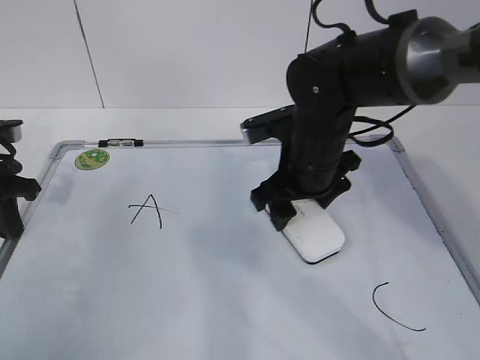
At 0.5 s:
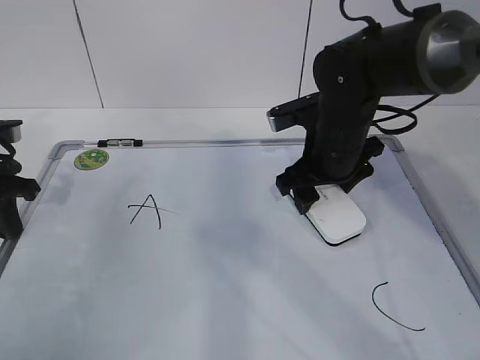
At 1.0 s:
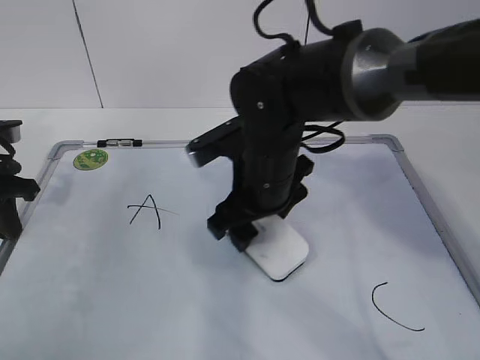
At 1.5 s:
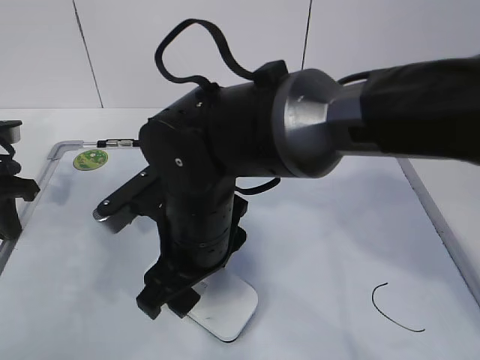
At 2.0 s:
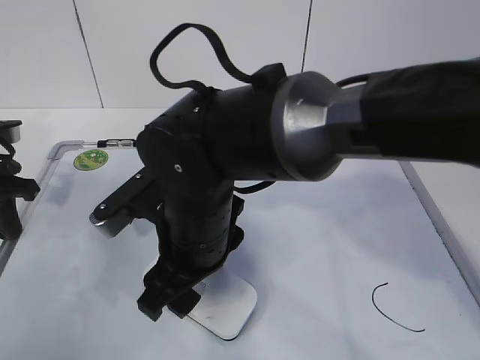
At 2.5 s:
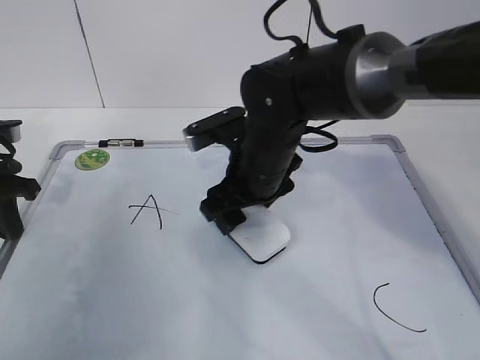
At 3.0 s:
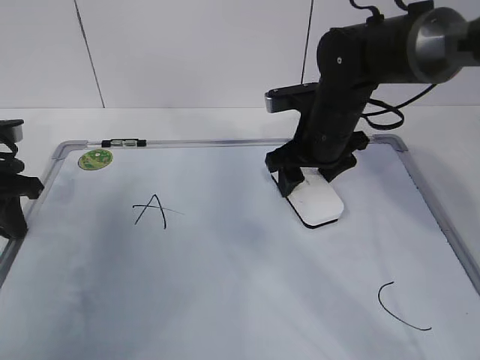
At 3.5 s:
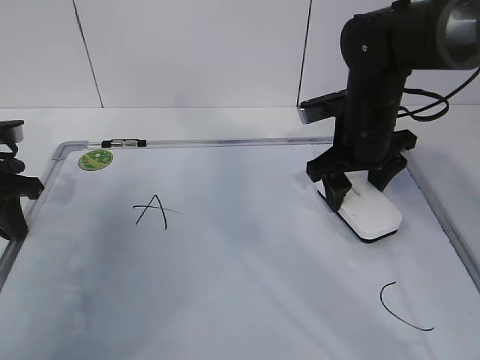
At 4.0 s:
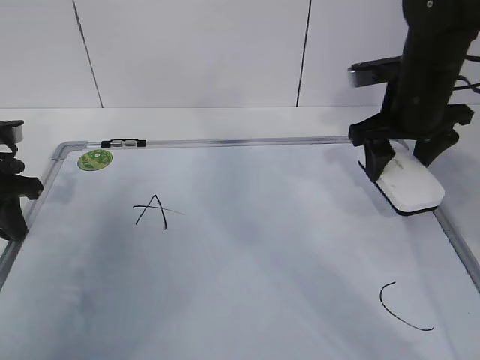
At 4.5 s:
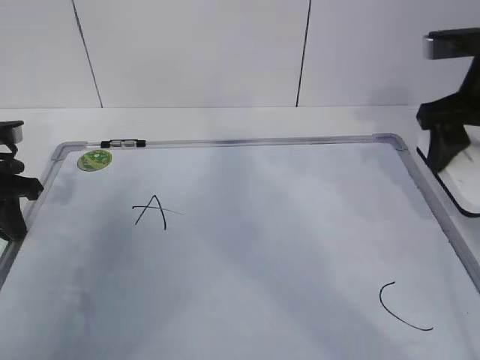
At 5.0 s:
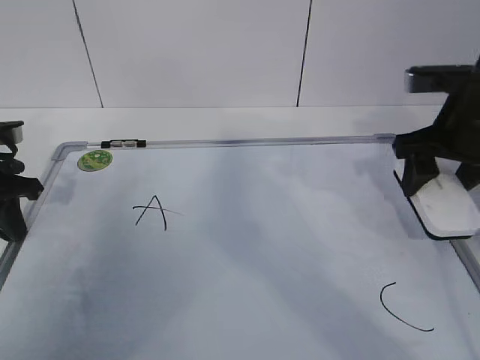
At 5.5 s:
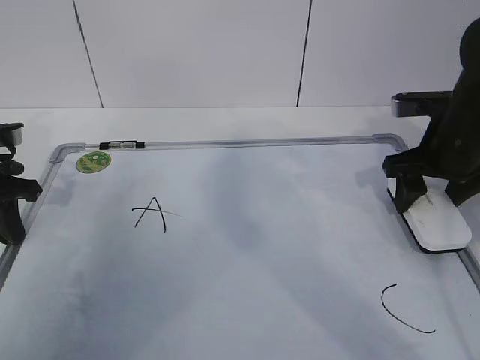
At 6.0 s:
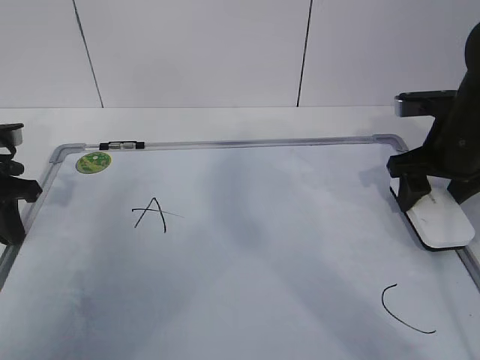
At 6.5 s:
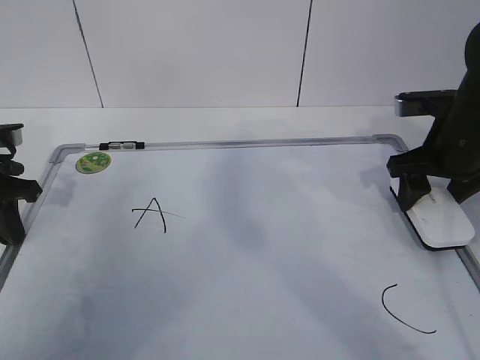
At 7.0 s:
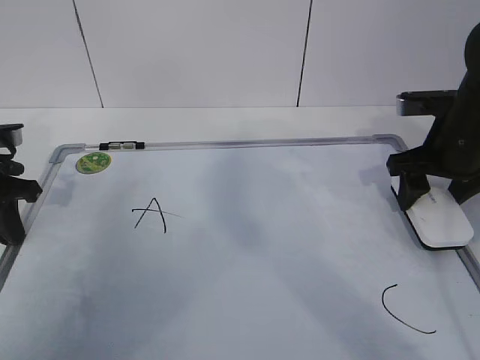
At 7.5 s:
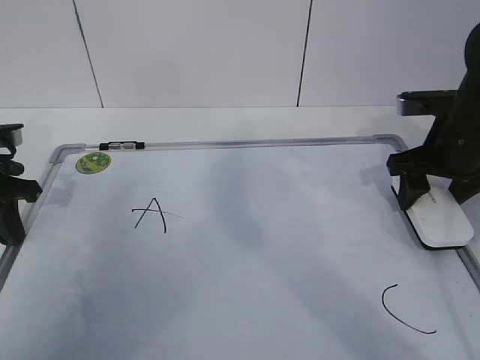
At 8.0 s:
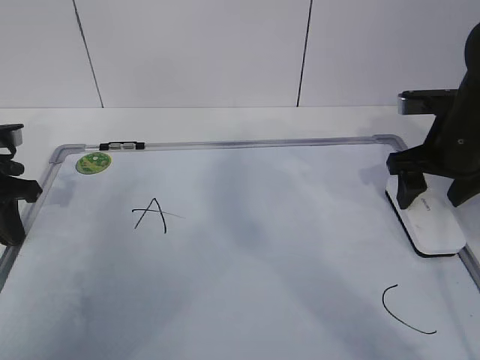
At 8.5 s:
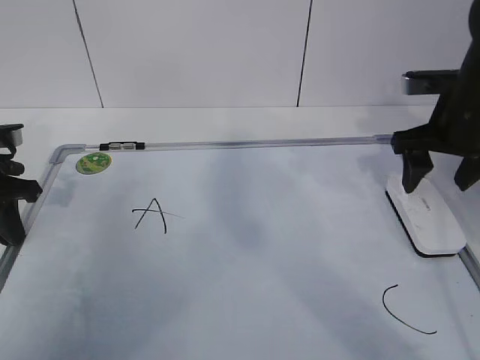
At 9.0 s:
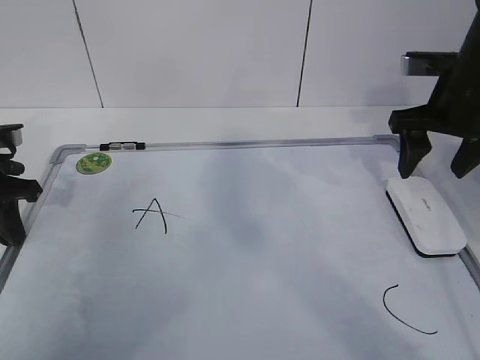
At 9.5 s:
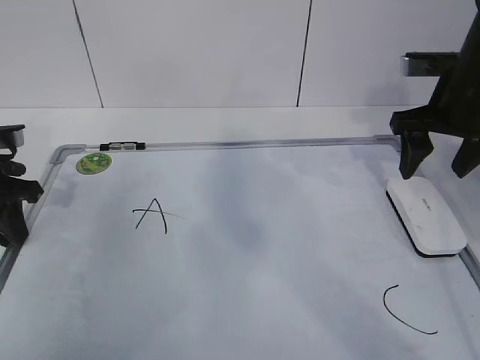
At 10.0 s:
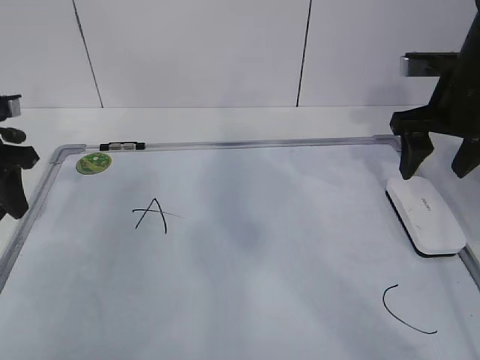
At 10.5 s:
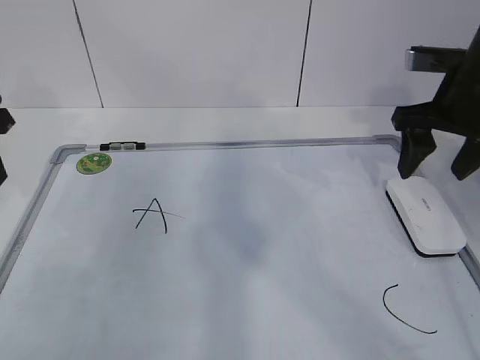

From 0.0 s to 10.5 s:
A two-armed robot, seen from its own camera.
Task of the whole recording: pick up the eraser on the blackboard and erase the letter "B".
Step, from 0.0 s to 3.0 s: Put down the eraser with your right hand.
From 0.0 s to 2.0 s: The right gripper heads to the left and backward, covering approximately 15 cm.
From 2.0 s to 4.0 s: The right gripper heads to the right and forward, covering roughly 25 cm.
From 4.0 s to 6.5 s: The right gripper moves to the right, about 5 cm.
From 6.5 s to 8.5 s: The right gripper opens.
From 8.5 s to 10.5 s: The left gripper travels upward by about 10 cm, and opens up.

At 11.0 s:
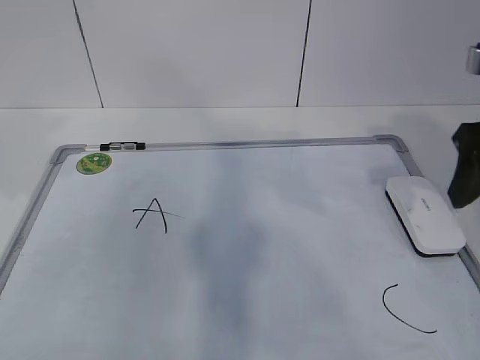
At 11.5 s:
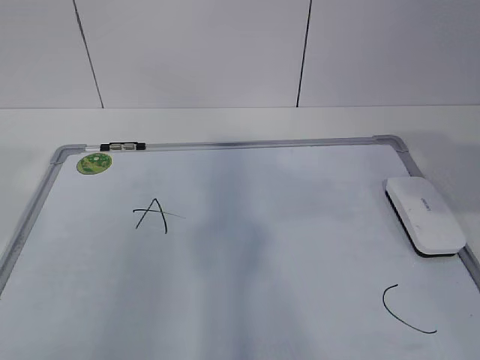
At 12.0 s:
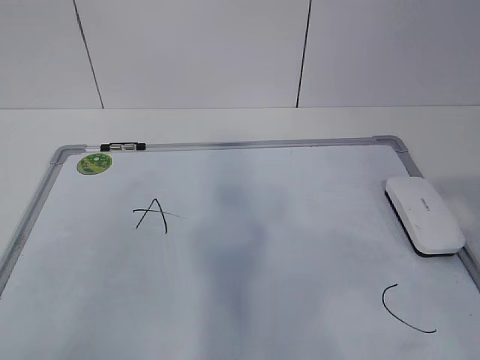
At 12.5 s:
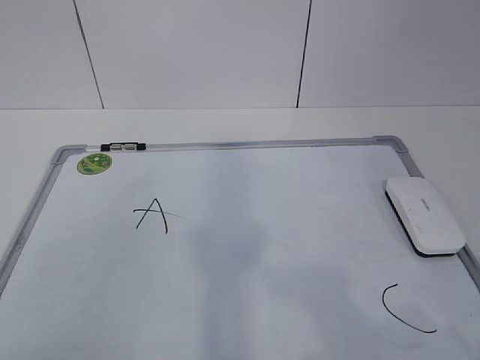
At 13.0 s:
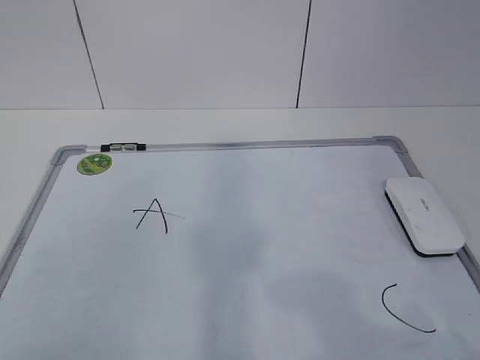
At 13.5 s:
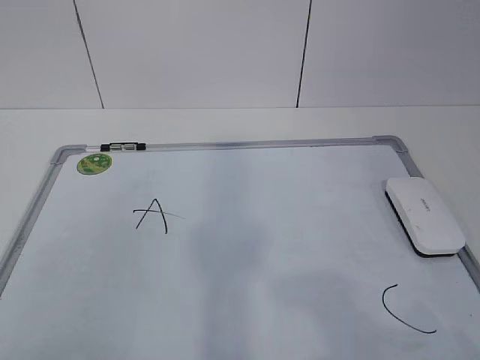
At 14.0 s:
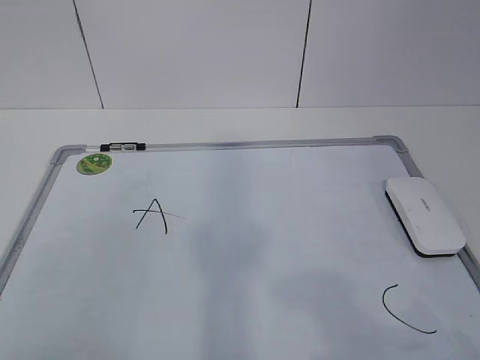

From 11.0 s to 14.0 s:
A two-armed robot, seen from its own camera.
Task of the whole recording: pick up the eraser on the blackboard and erase the letter "B".
From 11.0 s to 12.5 s: The right gripper travels backward by approximately 25 cm, and closes.

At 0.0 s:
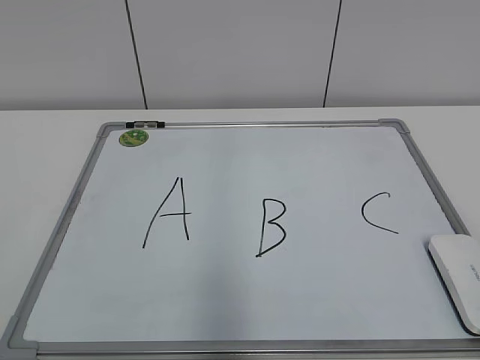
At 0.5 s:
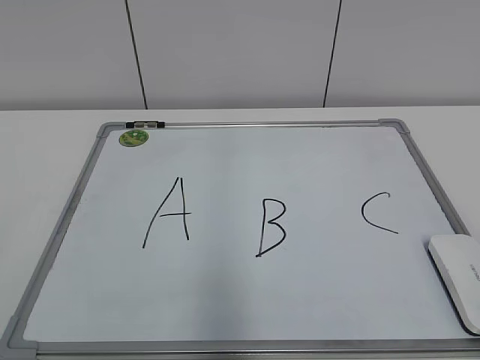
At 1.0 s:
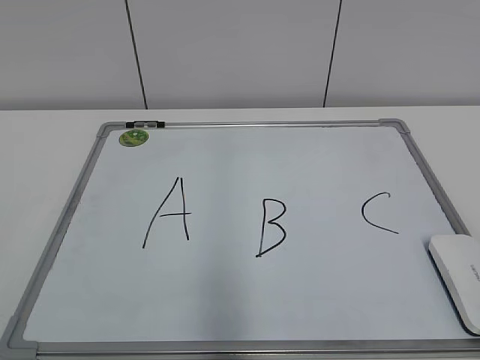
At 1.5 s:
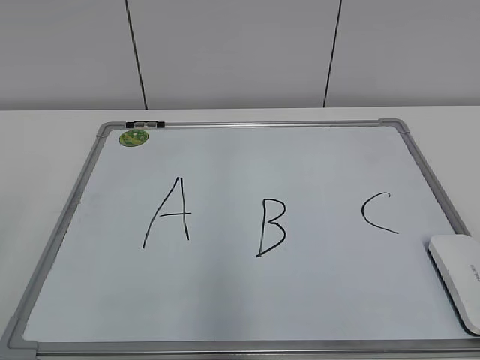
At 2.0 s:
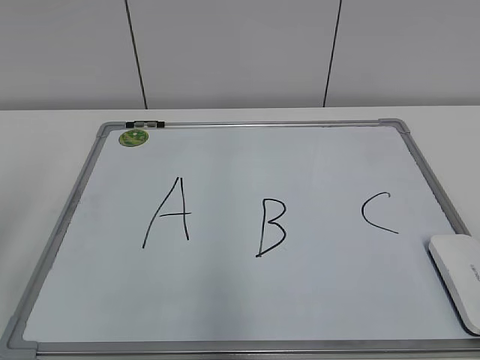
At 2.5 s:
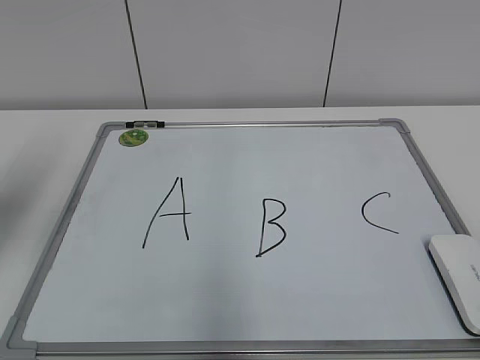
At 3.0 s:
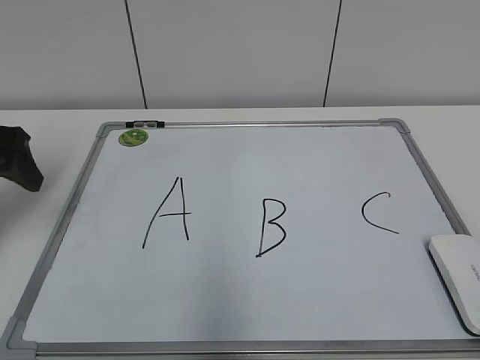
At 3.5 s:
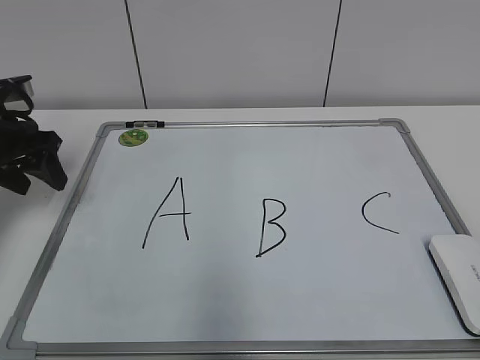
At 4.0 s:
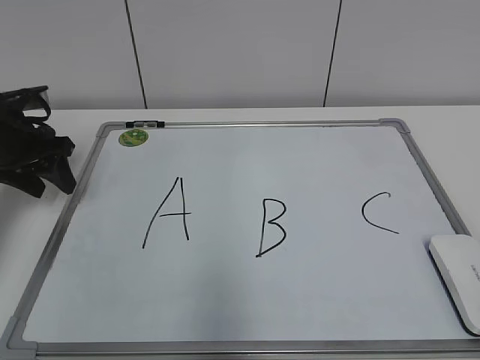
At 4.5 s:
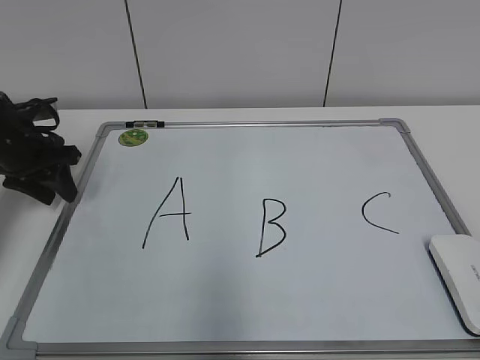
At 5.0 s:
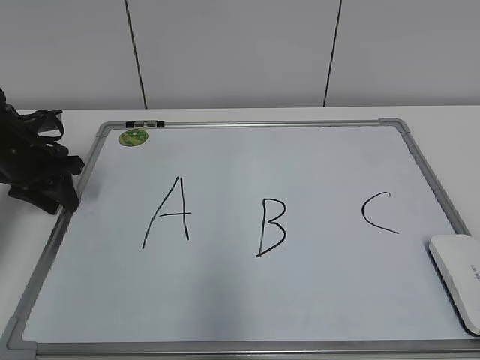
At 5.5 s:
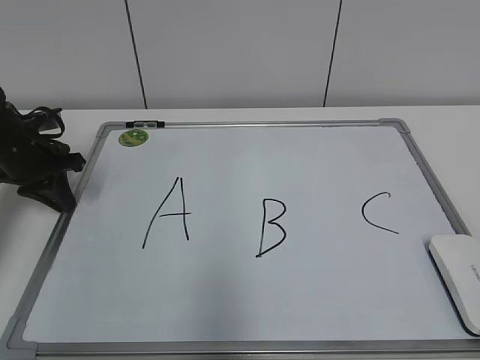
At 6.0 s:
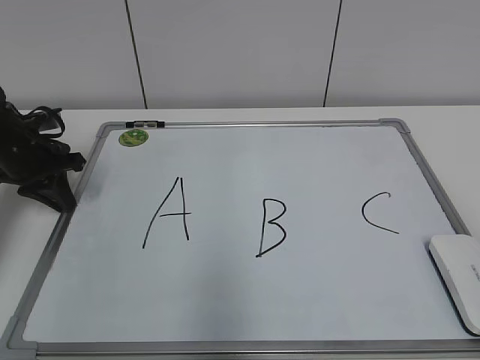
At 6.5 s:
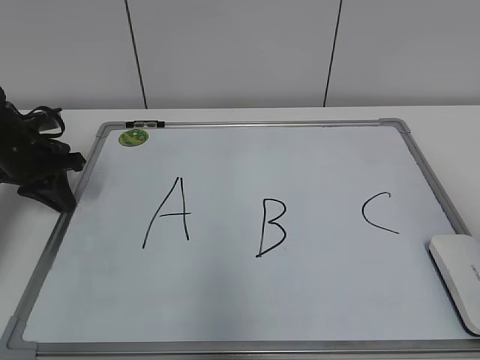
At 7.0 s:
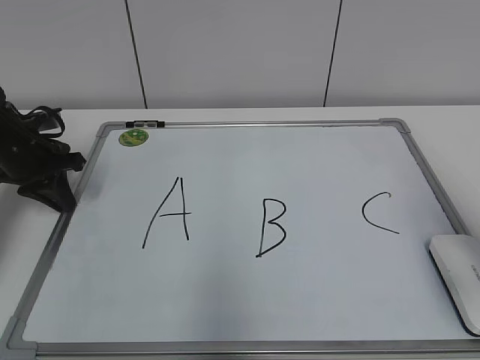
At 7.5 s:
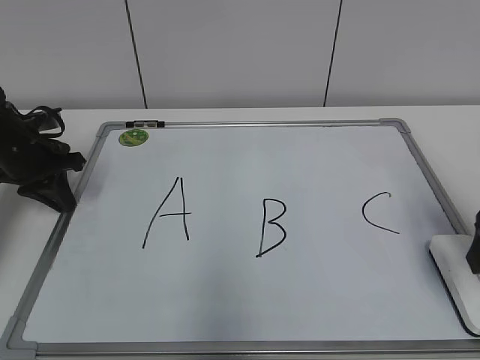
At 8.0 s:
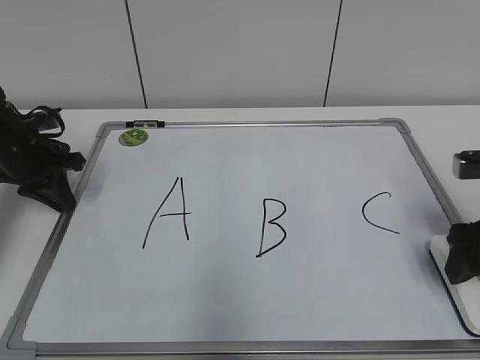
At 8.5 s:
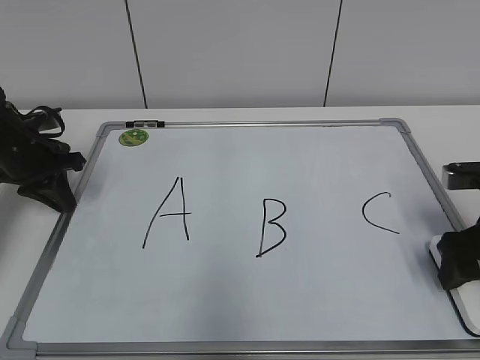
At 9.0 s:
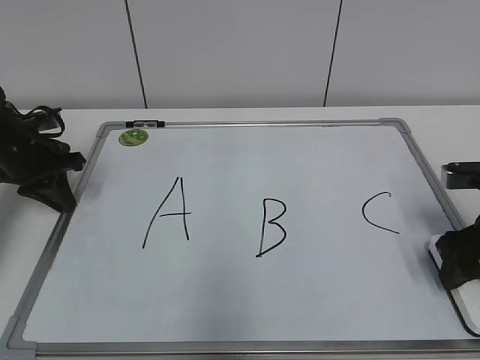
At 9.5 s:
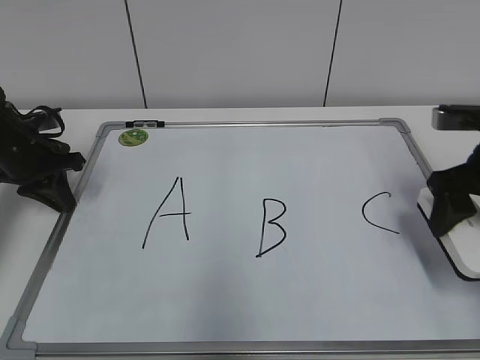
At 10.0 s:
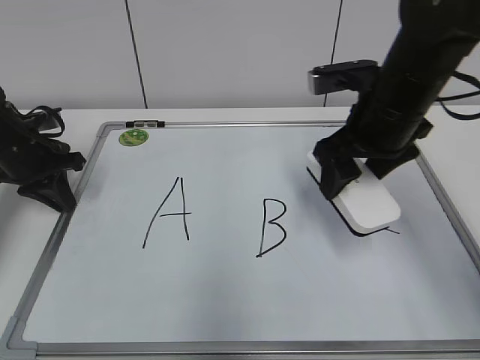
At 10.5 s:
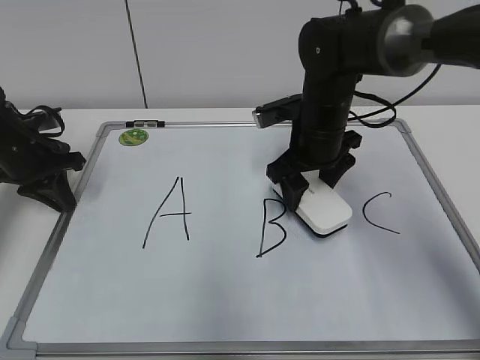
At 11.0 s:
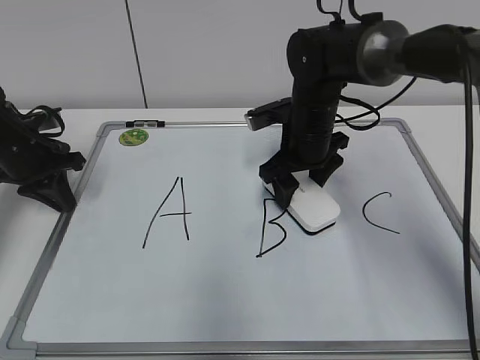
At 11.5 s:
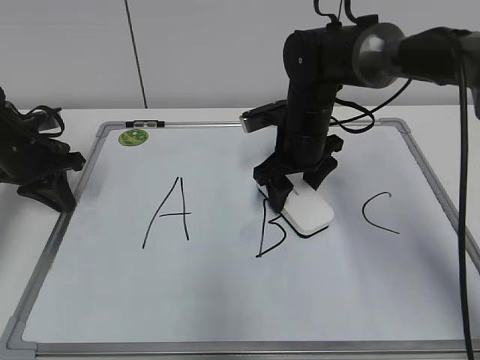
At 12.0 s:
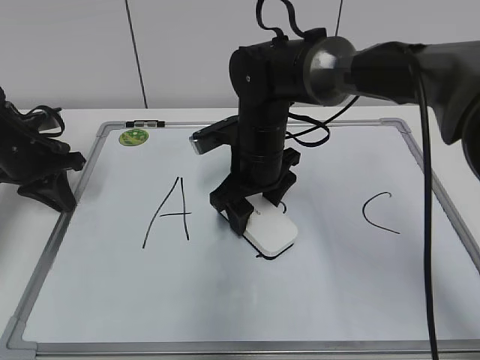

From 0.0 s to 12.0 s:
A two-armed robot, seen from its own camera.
Task of the whole recording: pick up the eraser on the blackboard and erase the letter "B".
Step, from 0.0 s to 5.0 s: Hold the drawing board steady with your left hand.
Step, from 5.5 s to 8.5 s: Grab the eraser with your right hand.
From 2.0 s to 4.0 s: The left gripper heads forward and downward, covering about 30 cm.
From 4.0 s to 6.0 s: The left gripper closes up.
From 6.0 s to 8.0 s: The right gripper shifts approximately 30 cm forward and downward, and opens.
From 8.0 s to 10.0 s: The right gripper goes roughly 15 cm to the left, forward and upward, and closes.
From 10.0 s to 12.0 s: The right gripper goes about 15 cm to the left and downward.
